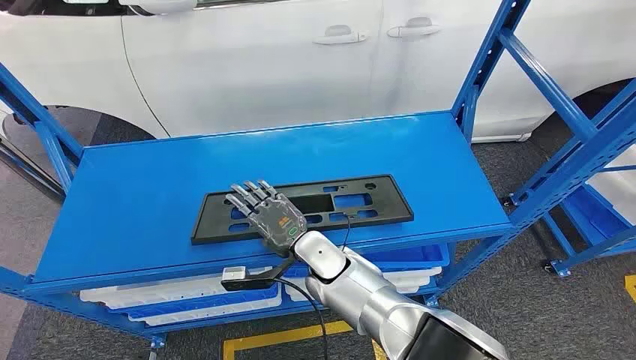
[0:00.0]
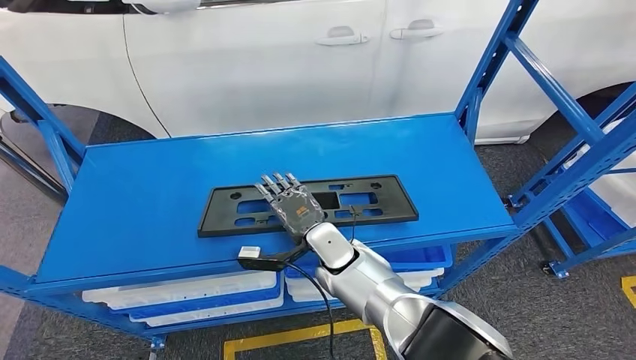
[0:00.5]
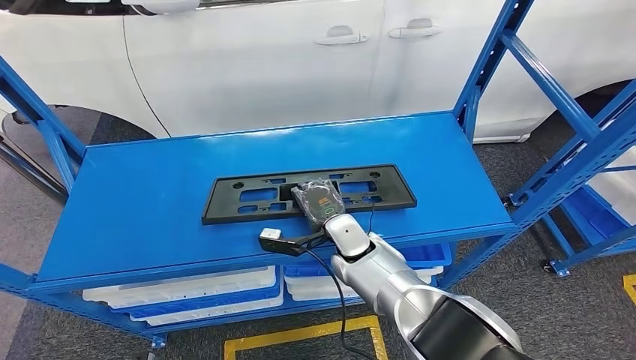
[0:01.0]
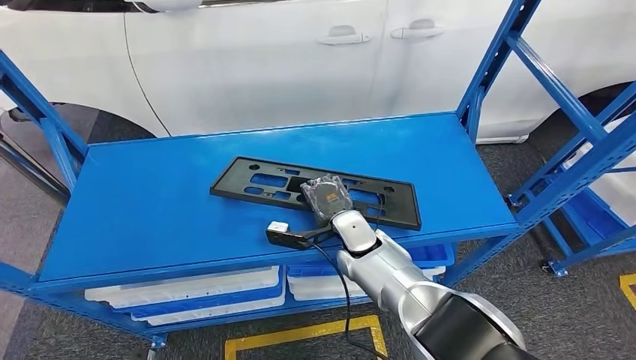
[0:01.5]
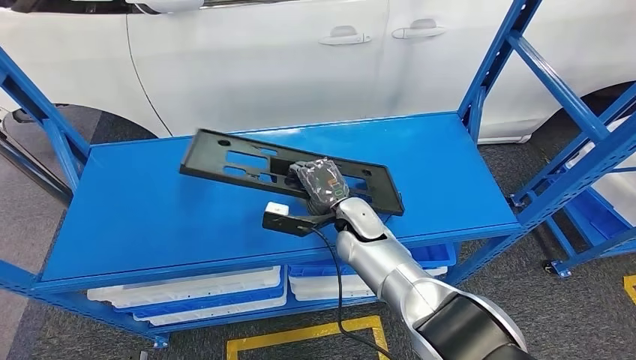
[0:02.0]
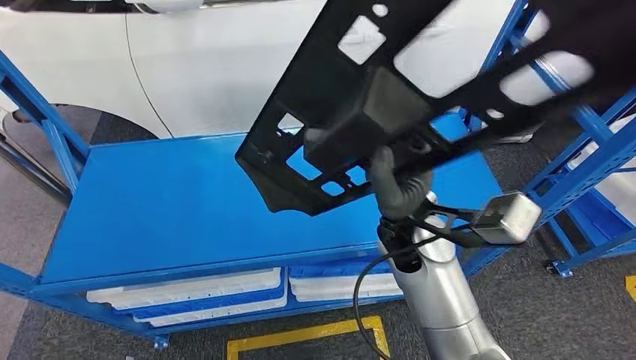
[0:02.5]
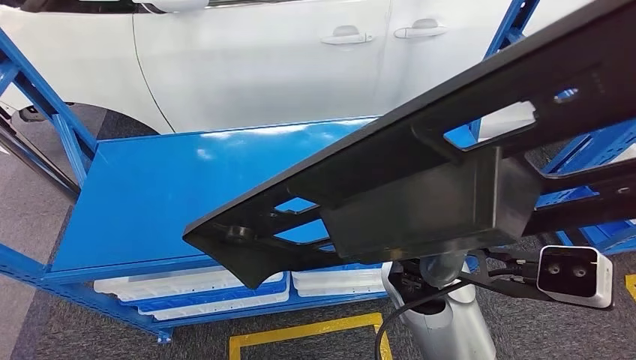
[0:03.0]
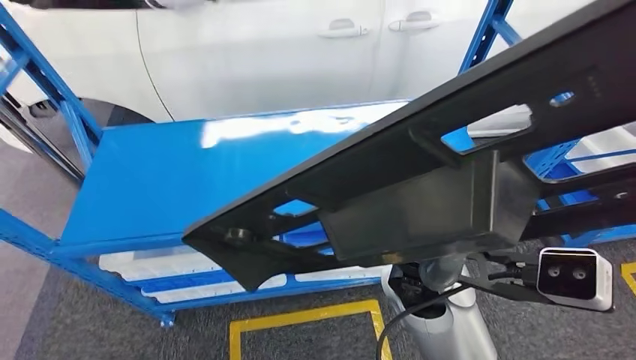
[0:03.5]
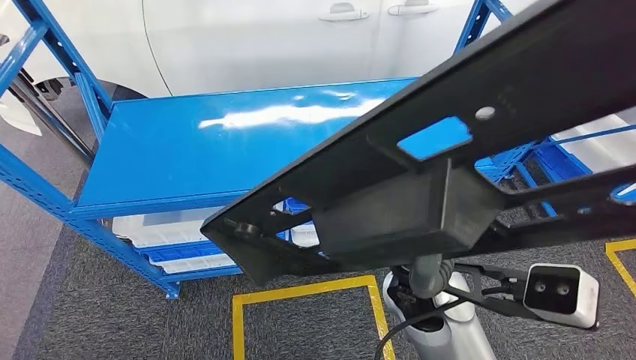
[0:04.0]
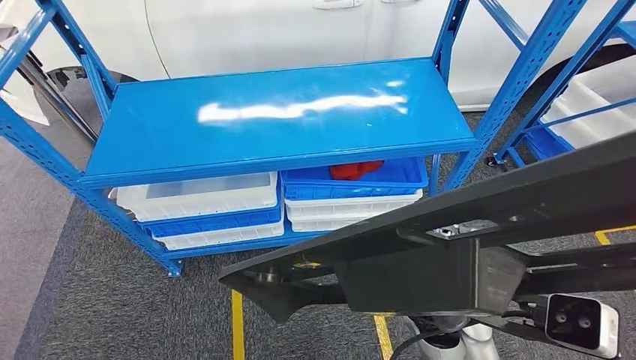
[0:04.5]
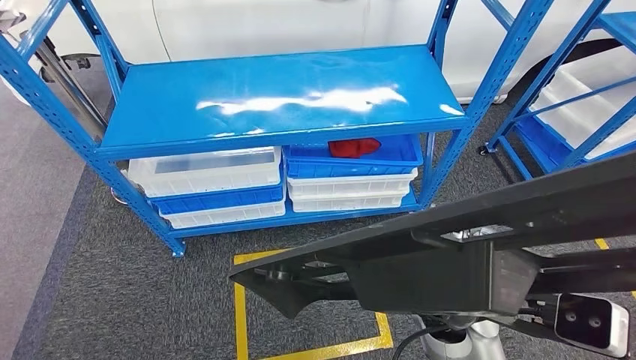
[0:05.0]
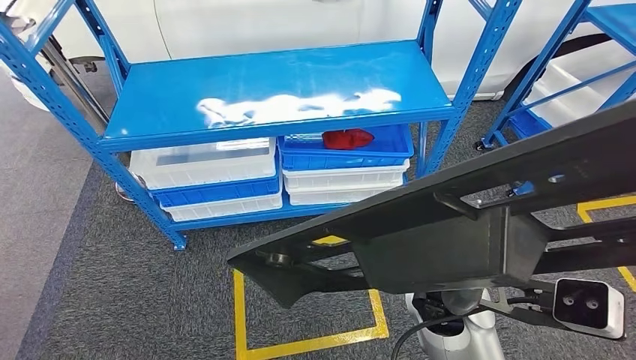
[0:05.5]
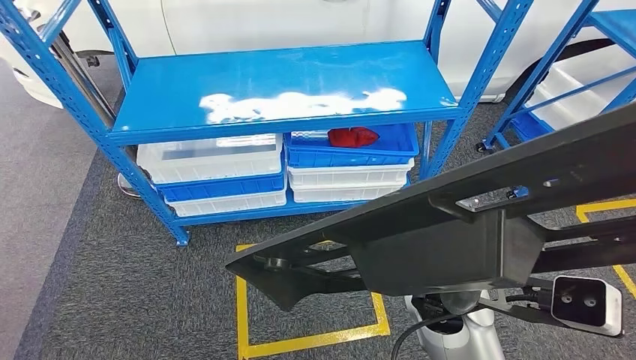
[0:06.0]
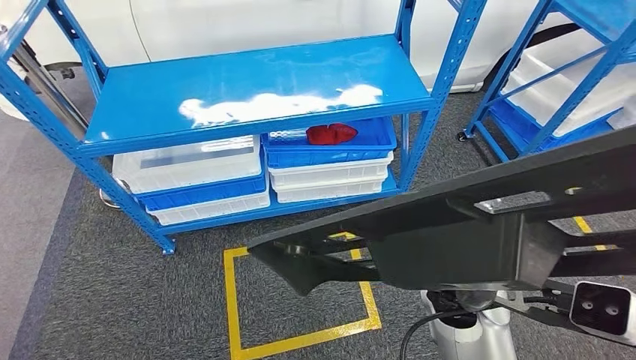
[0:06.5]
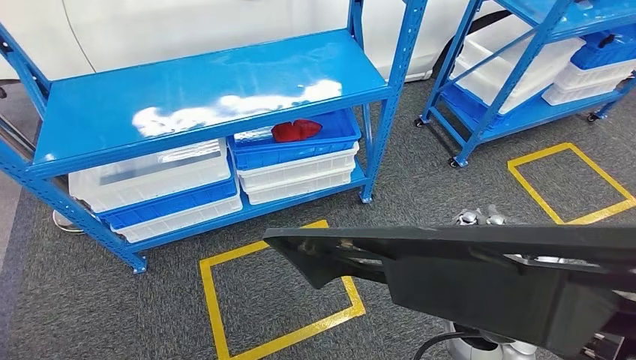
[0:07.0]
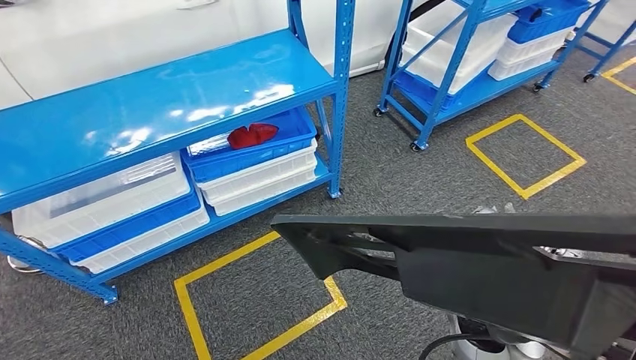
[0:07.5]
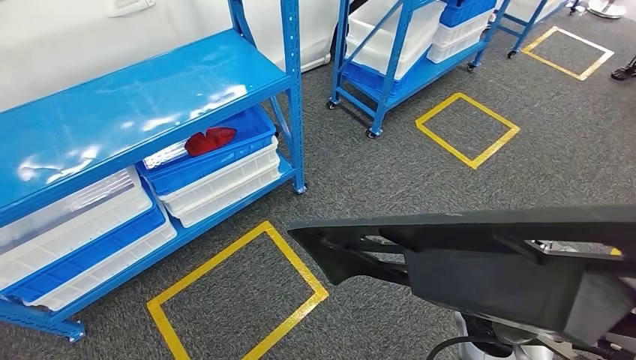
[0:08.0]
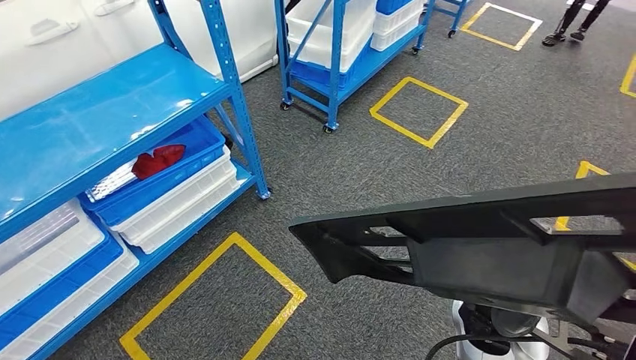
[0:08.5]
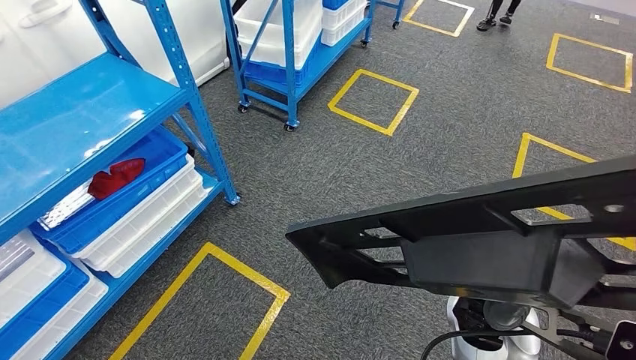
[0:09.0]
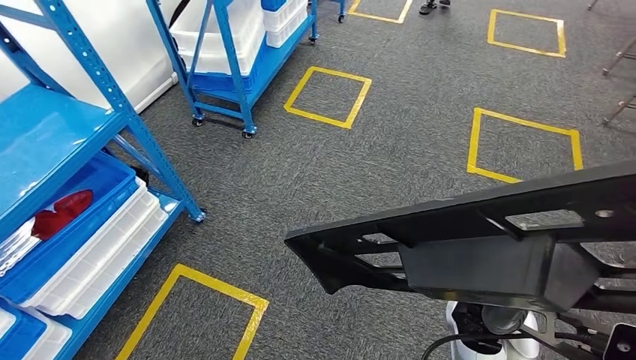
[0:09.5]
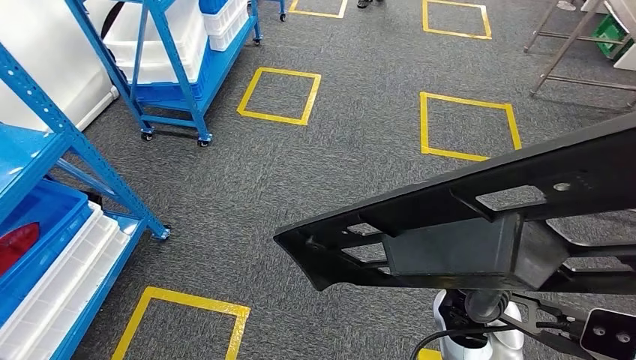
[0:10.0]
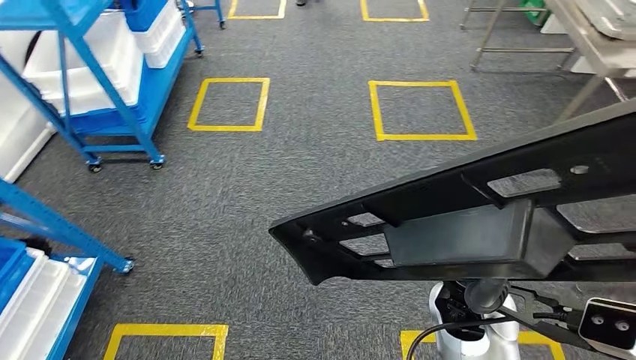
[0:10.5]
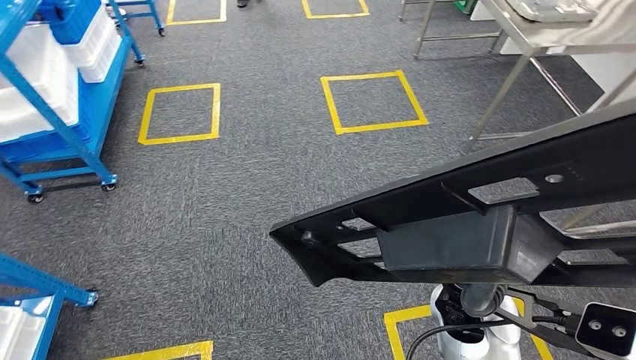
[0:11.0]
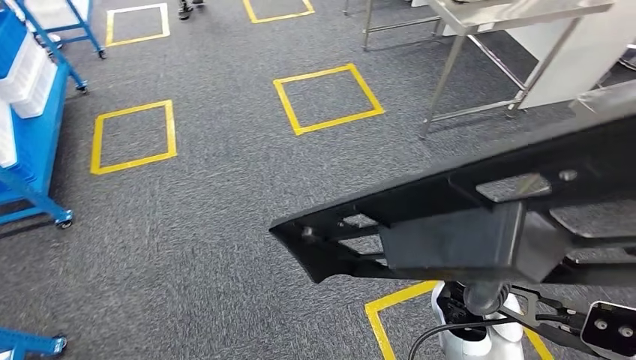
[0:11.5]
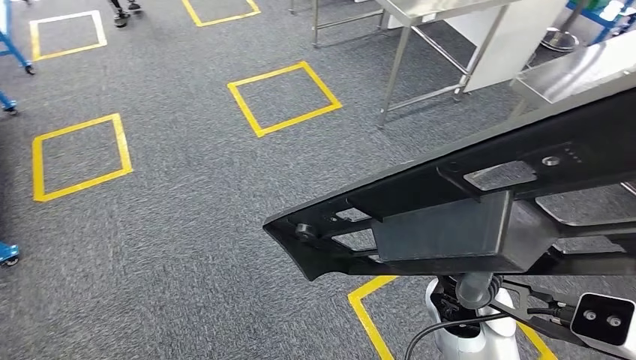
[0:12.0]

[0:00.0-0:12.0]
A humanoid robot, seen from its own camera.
Step, 0:00.0 to 0:04.0: Pick up the large material from the shelf.

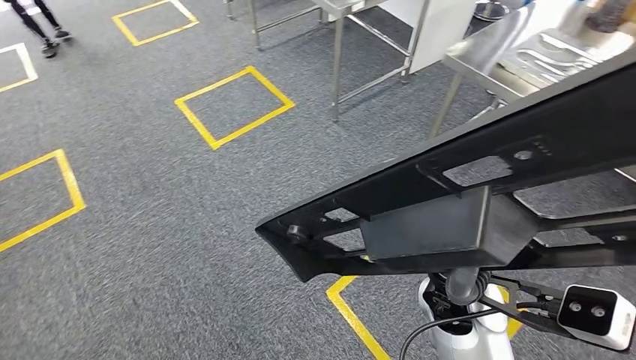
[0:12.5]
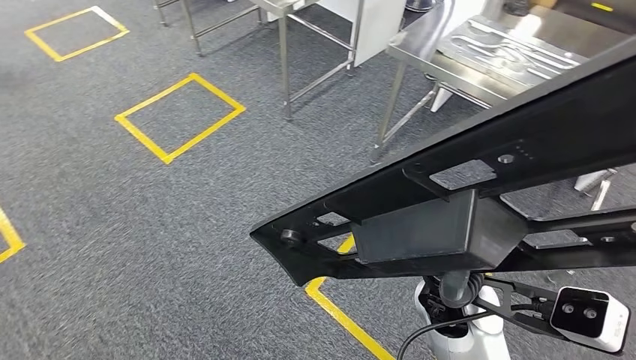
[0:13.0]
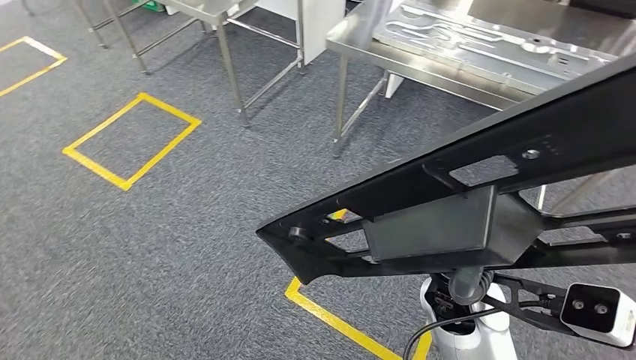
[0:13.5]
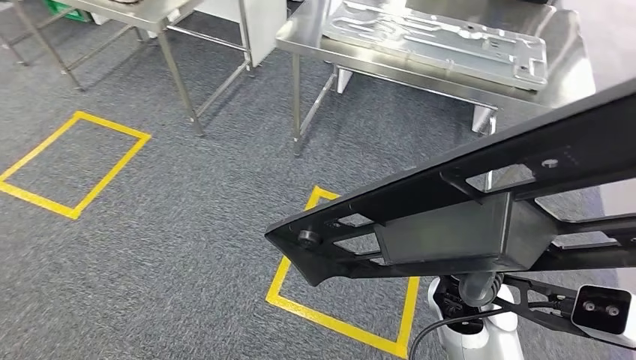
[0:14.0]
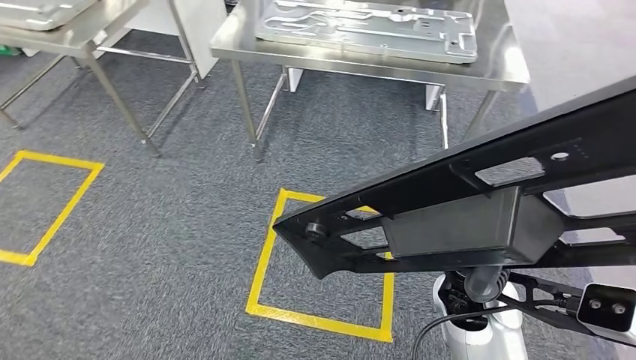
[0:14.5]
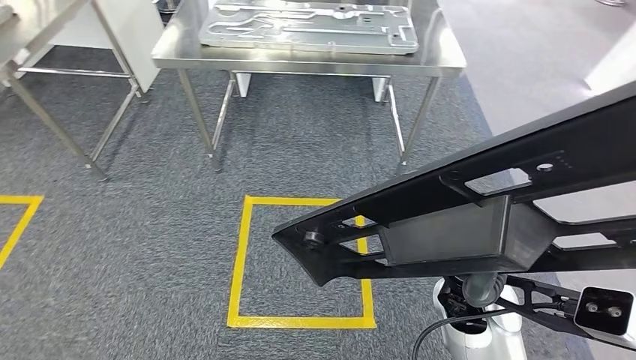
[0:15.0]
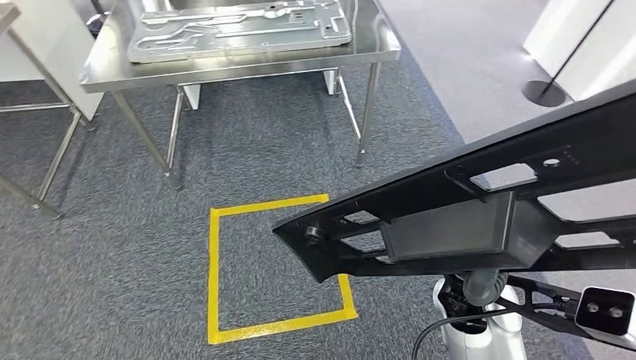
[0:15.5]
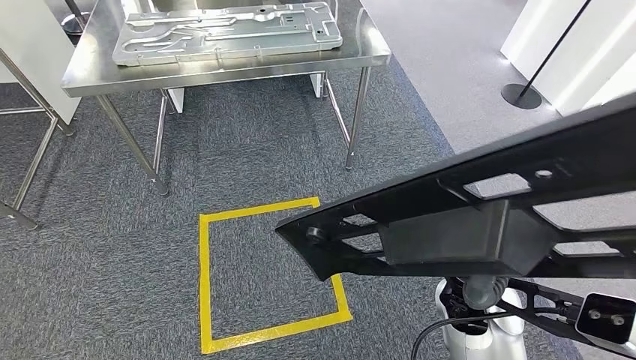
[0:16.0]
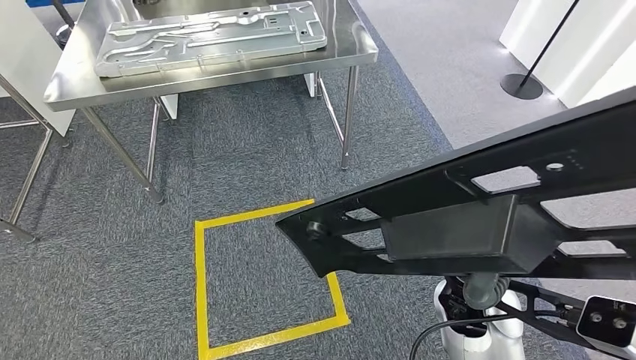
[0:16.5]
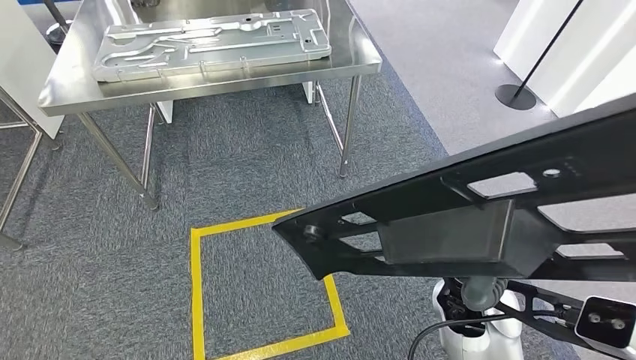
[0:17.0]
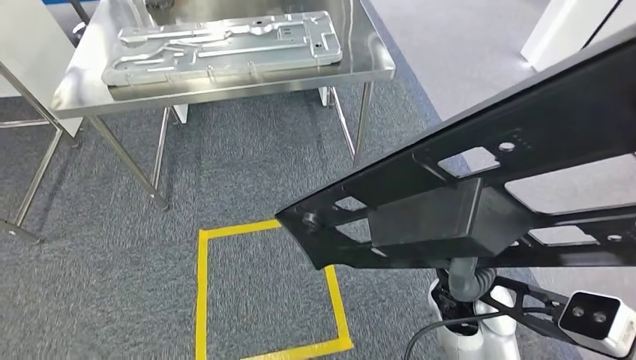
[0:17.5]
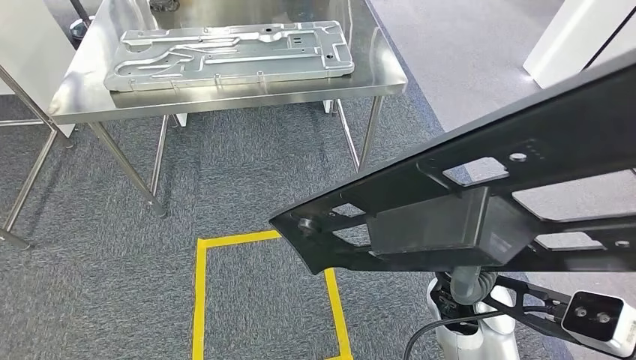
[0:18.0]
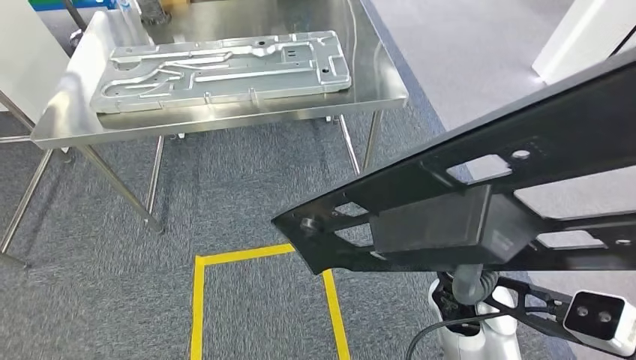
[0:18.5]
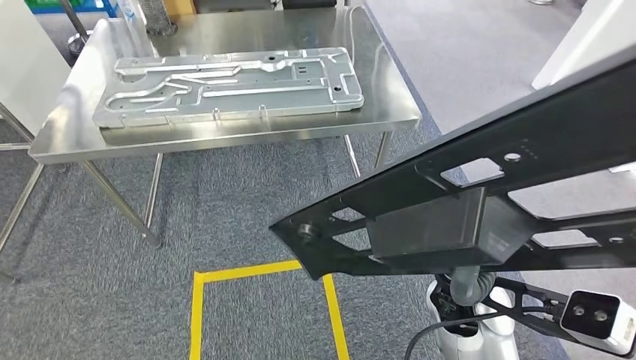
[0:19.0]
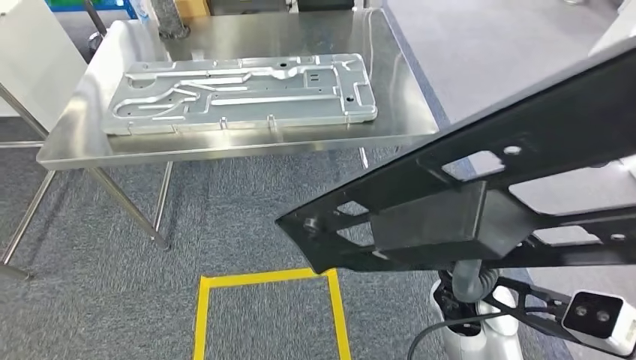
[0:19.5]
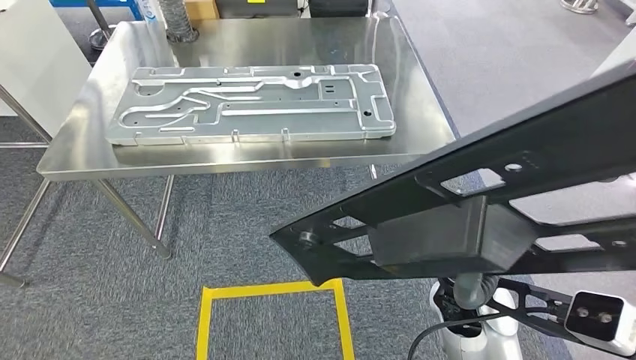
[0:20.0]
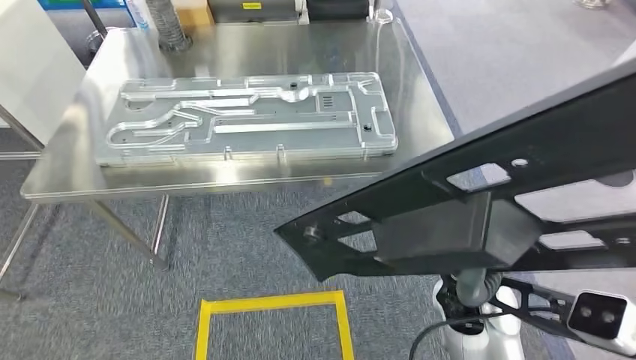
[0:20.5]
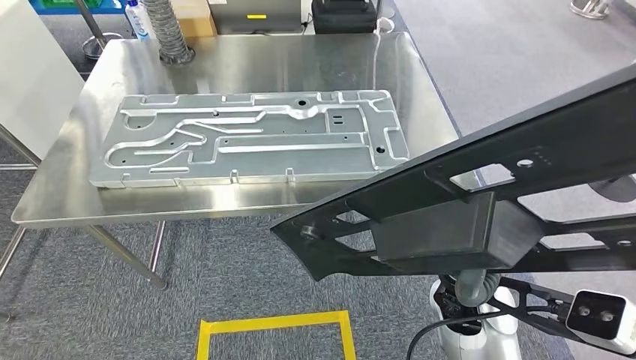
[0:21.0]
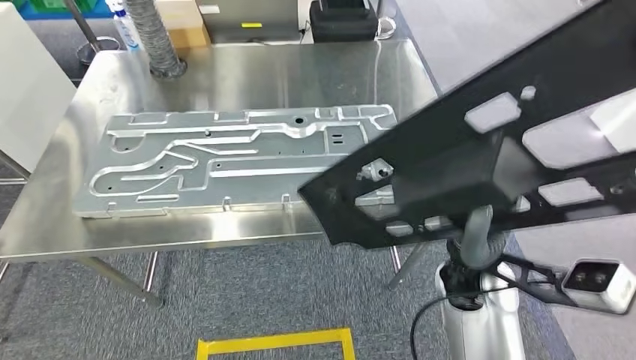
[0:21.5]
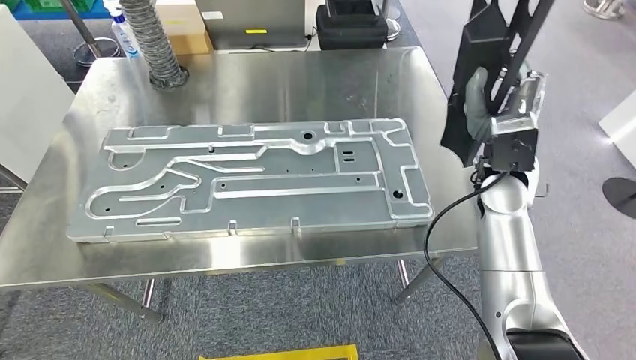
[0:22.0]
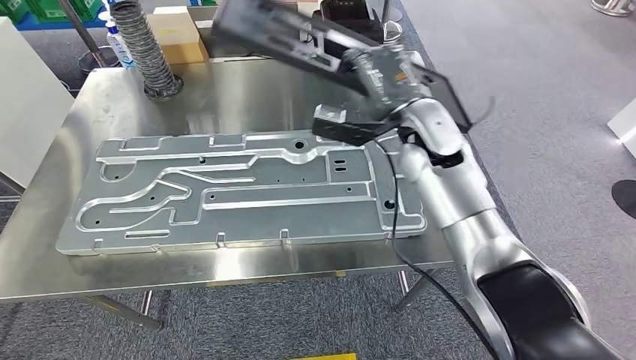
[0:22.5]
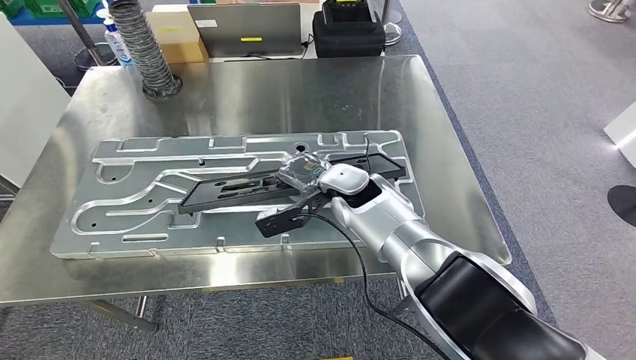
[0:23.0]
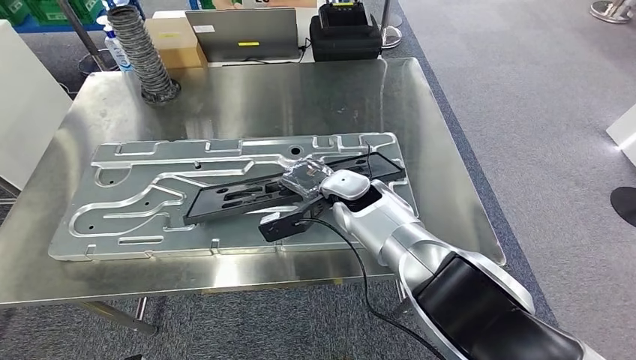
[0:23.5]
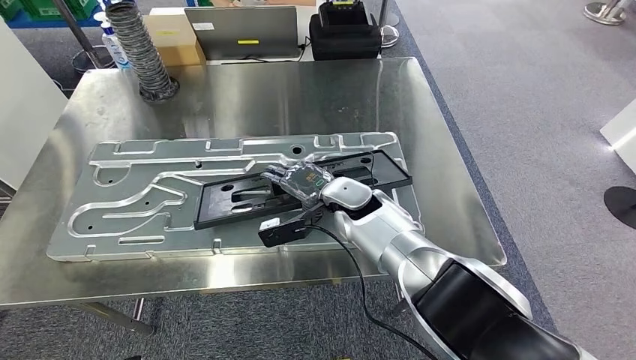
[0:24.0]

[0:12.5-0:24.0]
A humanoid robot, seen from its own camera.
Step, 0:12.5 to 0:21.0: Move the large material to the workbench.
